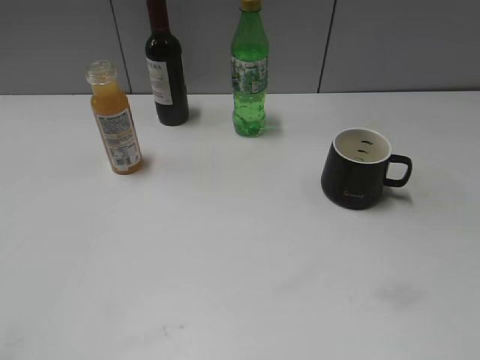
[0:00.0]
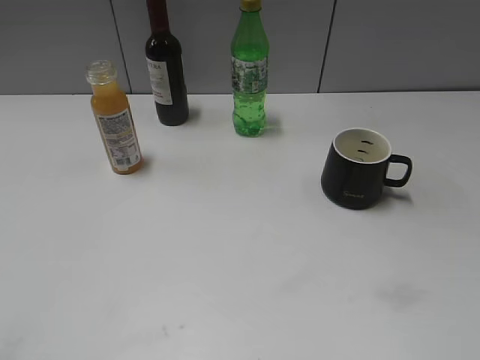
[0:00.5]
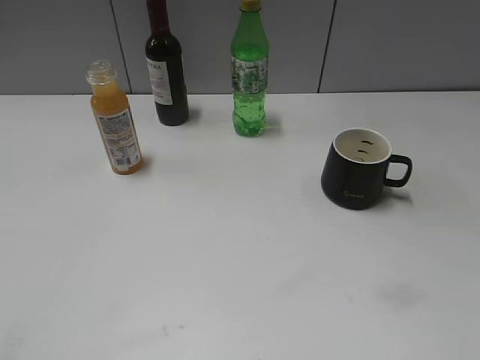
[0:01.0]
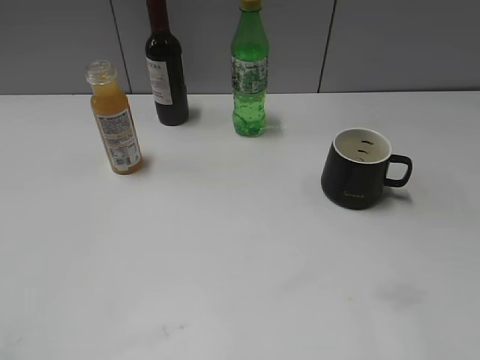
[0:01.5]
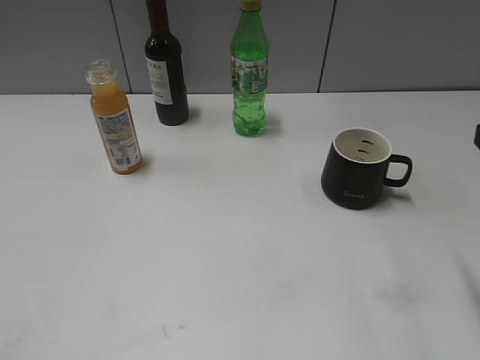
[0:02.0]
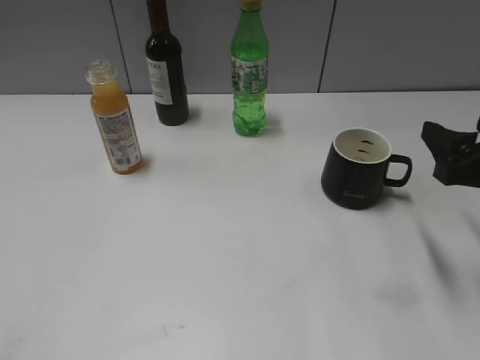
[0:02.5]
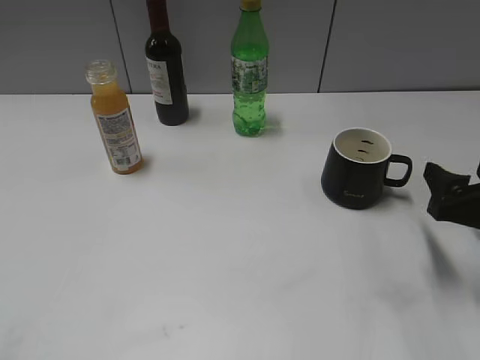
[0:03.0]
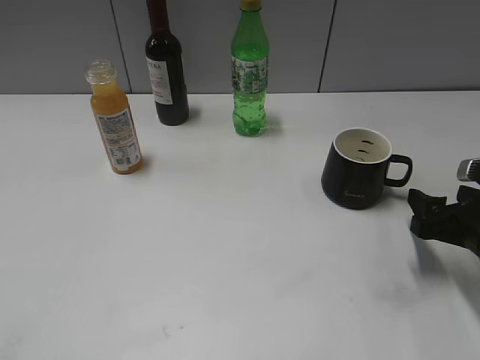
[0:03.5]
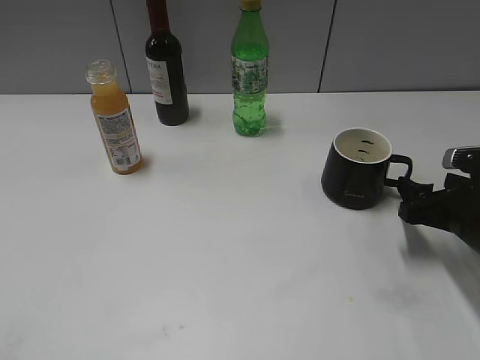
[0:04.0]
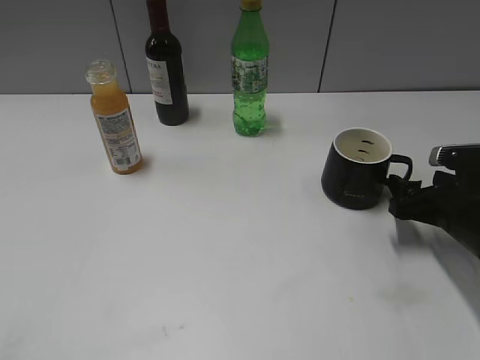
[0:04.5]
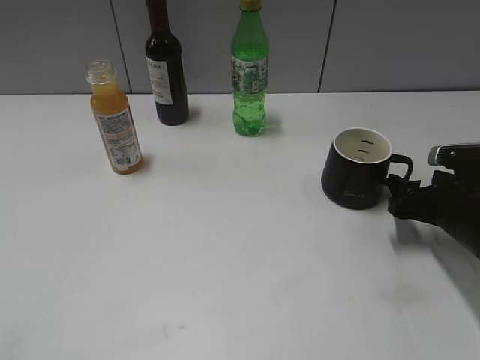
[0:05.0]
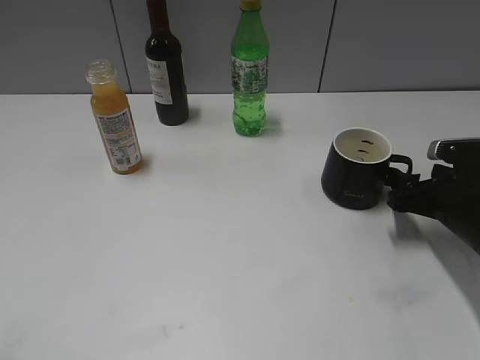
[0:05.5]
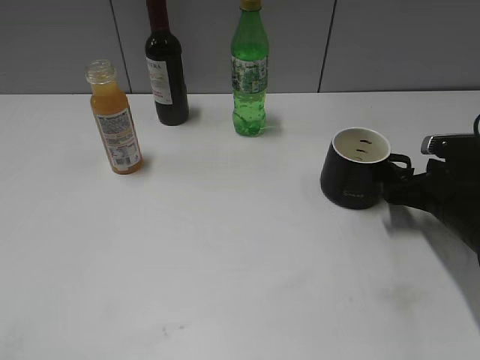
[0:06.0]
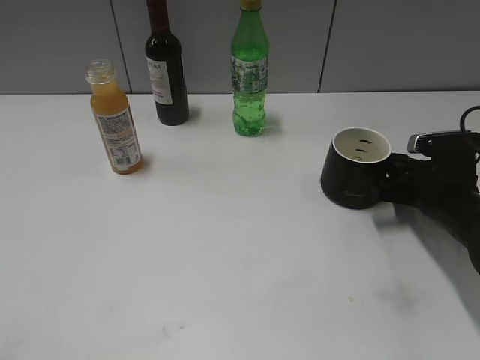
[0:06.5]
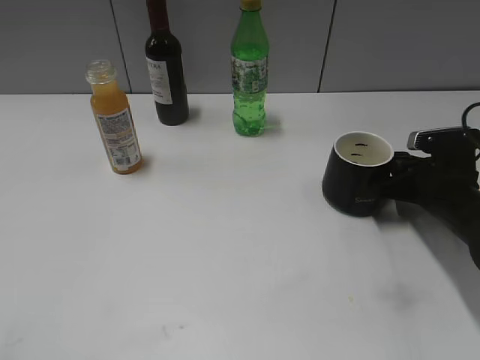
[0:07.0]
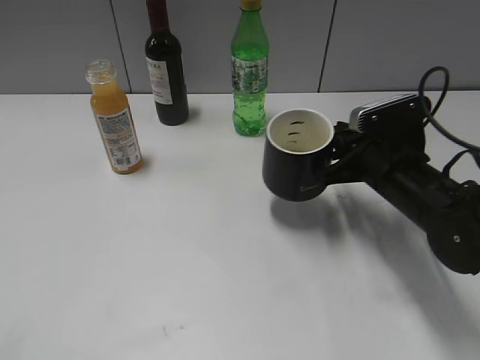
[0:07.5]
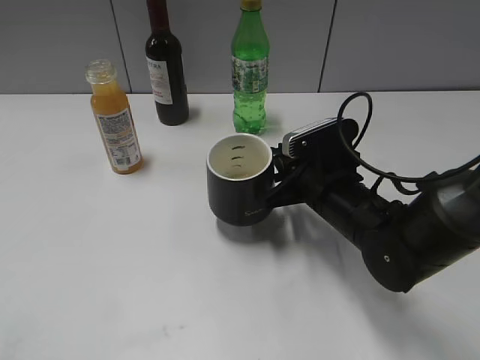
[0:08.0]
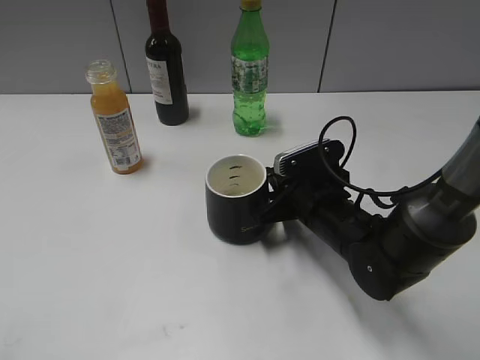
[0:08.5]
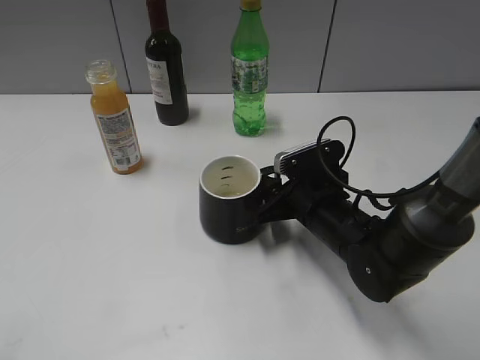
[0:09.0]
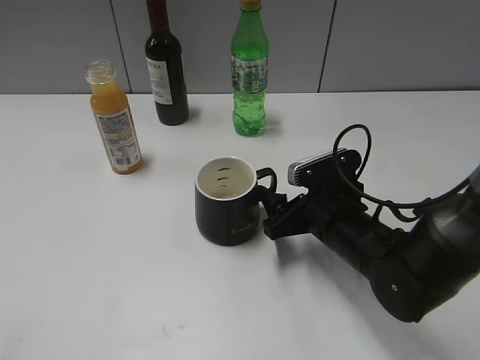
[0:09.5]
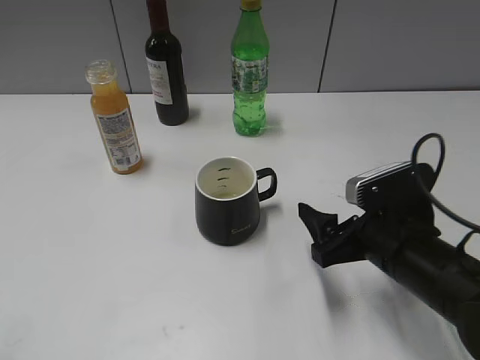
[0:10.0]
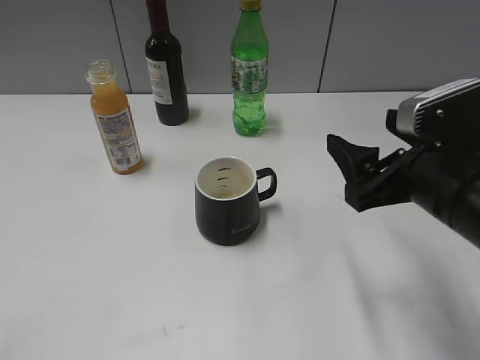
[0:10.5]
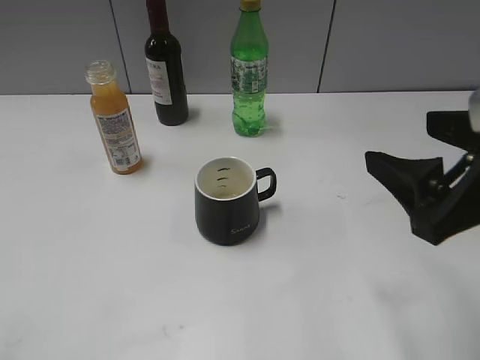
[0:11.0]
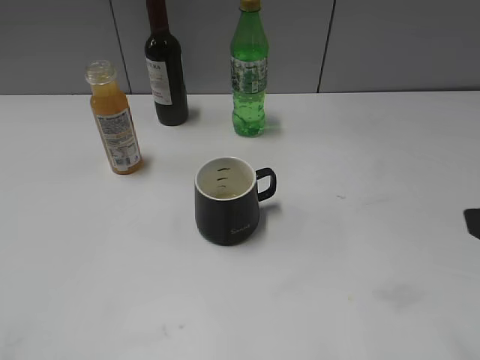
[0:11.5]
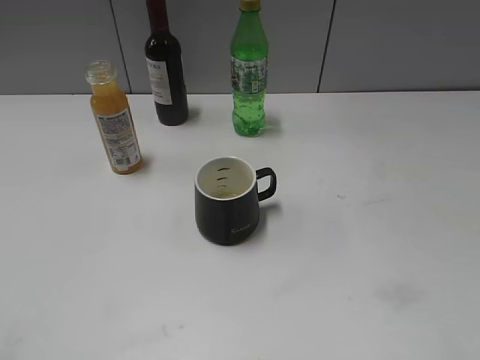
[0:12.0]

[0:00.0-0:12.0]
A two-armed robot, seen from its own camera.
Step, 0:02.0 to 0:07.0: Grasp the black cup with right gripper.
Step, 0:07.5 to 0:09.0: Place the black cup in the center of view with right gripper.
0:02.0 to 0:04.0: The right gripper moves downward and forward, some 20 cm.
0:04.0 to 0:06.0: The grippers stay close to where they were, moving slightly.
0:06.0 to 0:08.0: The right gripper goes some 15 cm to the left, and closes up.
0:08.0 to 0:10.0: The right gripper heads backward, covering approximately 10 cm, and opens.
0:10.0 to 0:12.0: The right gripper is displaced upward, backward and to the right by approximately 25 cm.

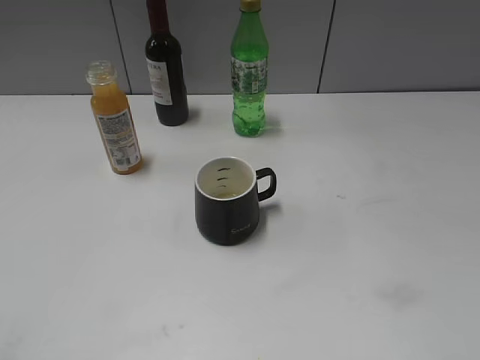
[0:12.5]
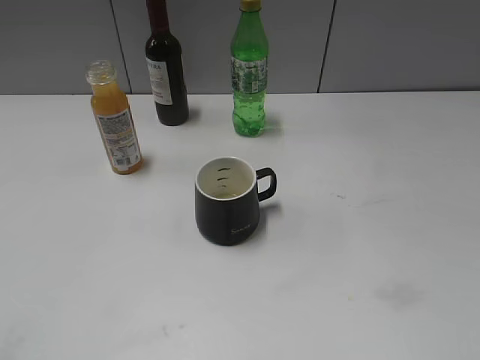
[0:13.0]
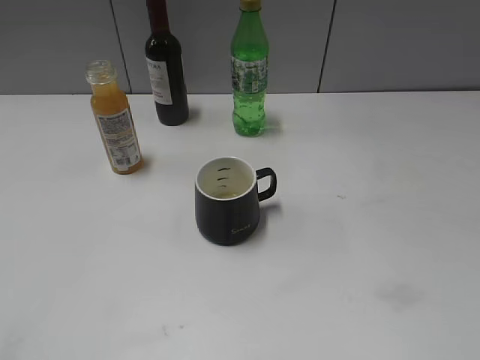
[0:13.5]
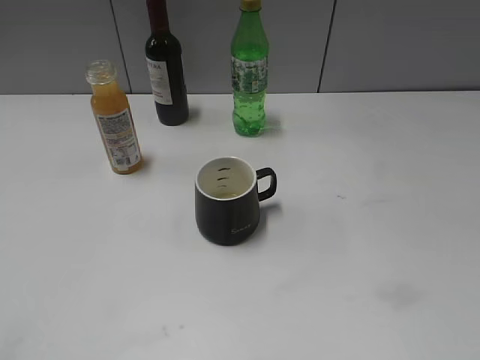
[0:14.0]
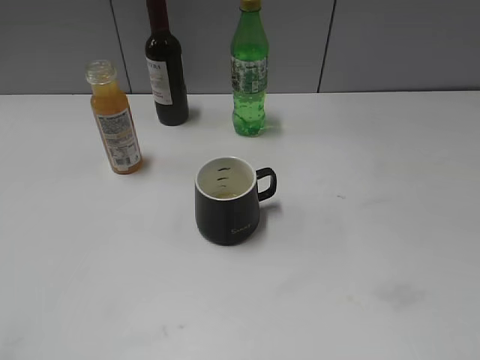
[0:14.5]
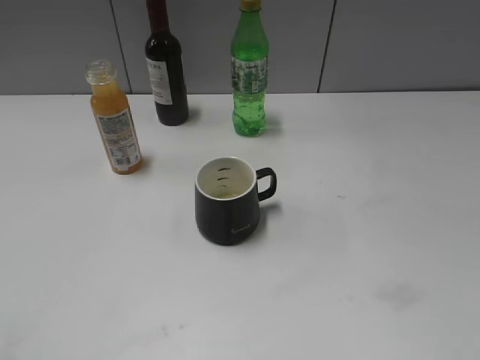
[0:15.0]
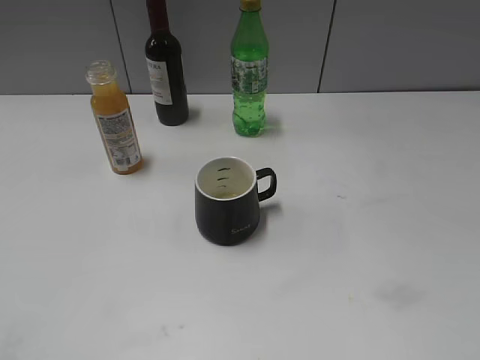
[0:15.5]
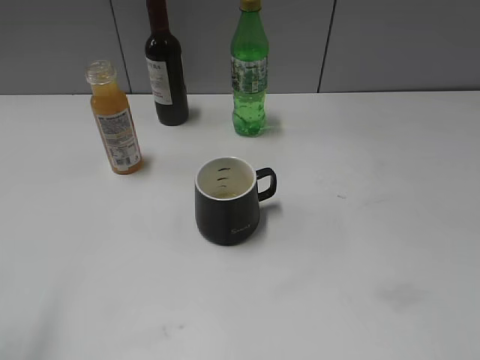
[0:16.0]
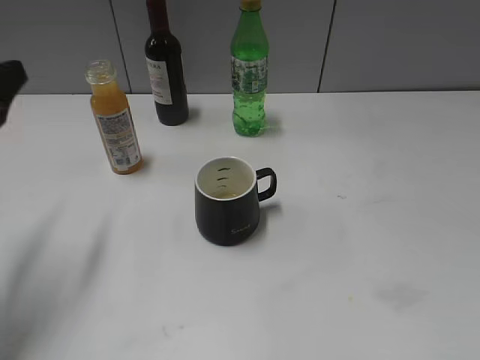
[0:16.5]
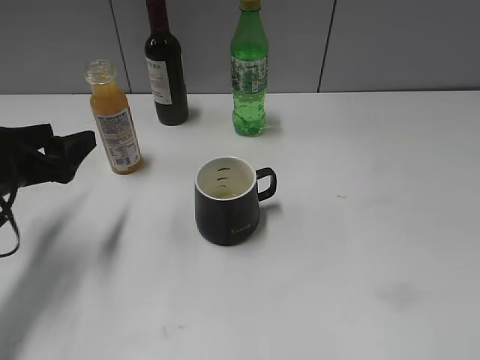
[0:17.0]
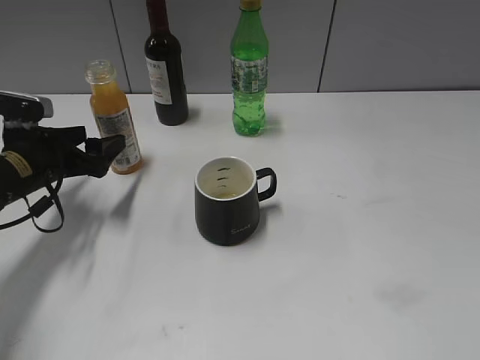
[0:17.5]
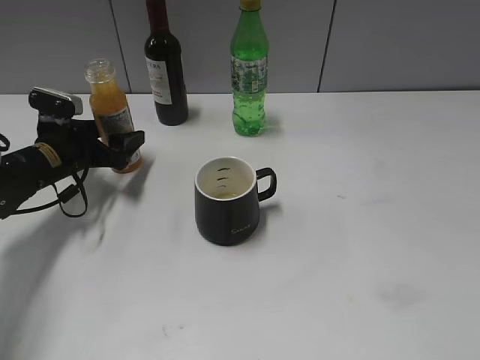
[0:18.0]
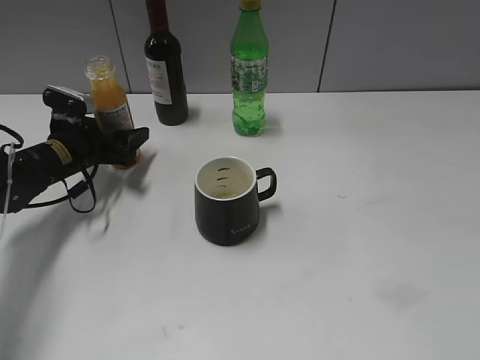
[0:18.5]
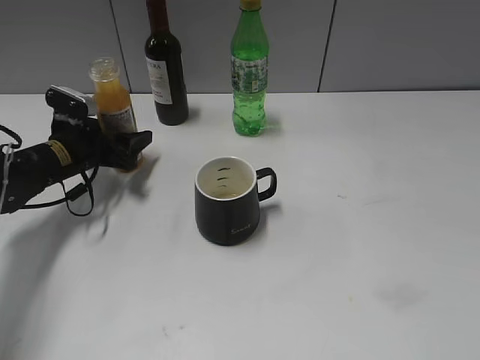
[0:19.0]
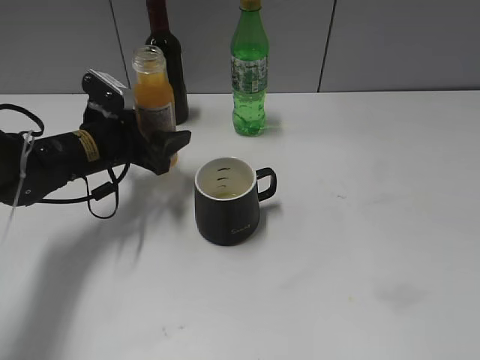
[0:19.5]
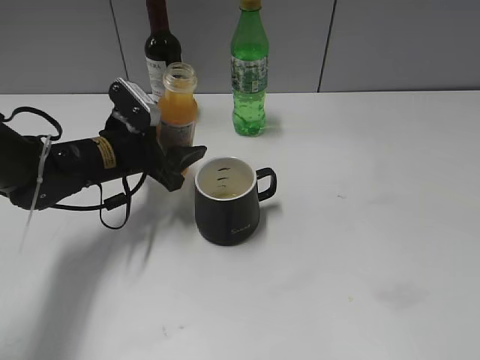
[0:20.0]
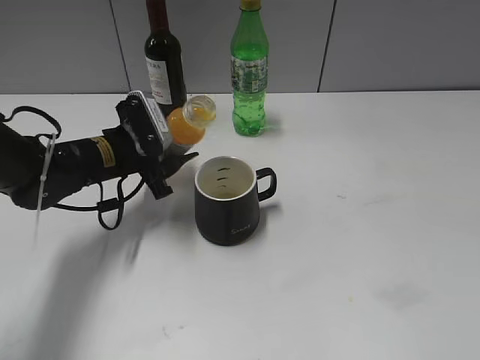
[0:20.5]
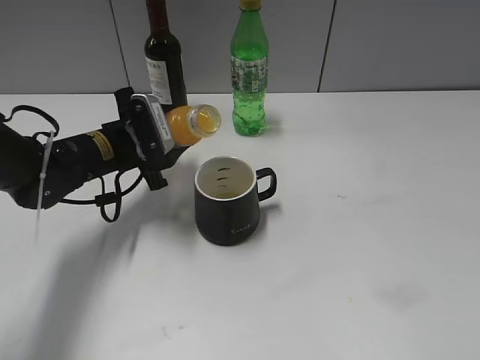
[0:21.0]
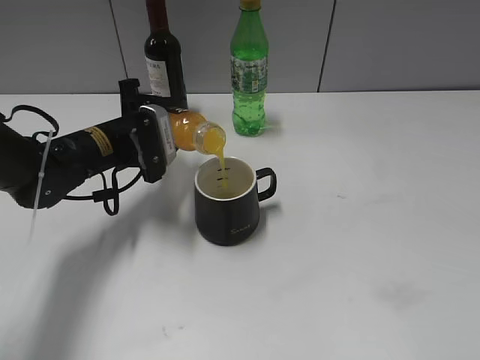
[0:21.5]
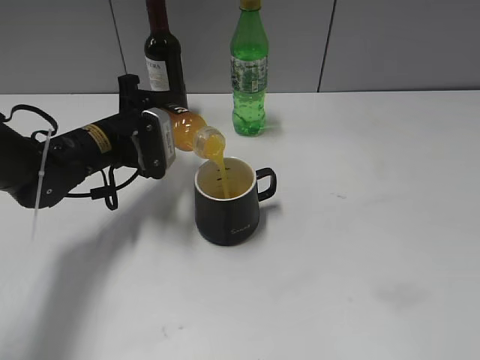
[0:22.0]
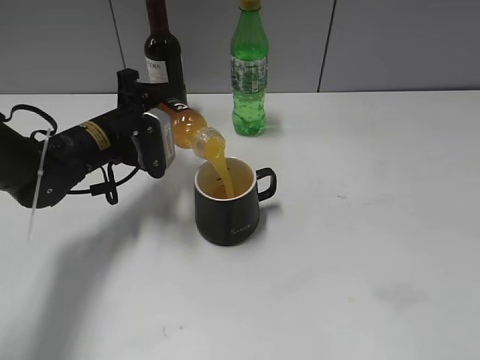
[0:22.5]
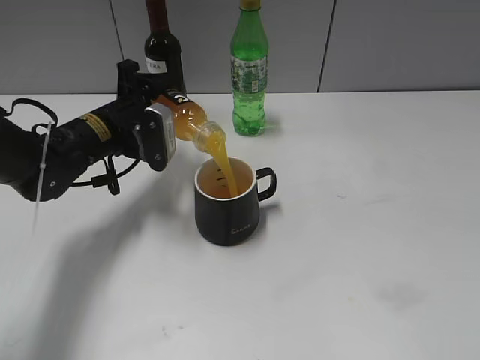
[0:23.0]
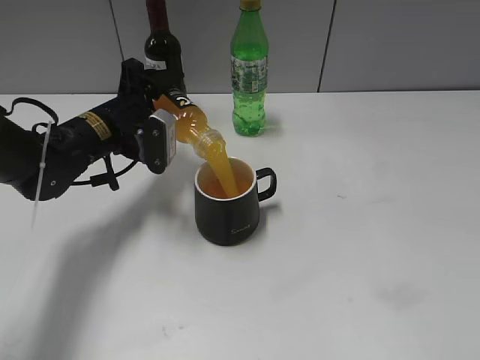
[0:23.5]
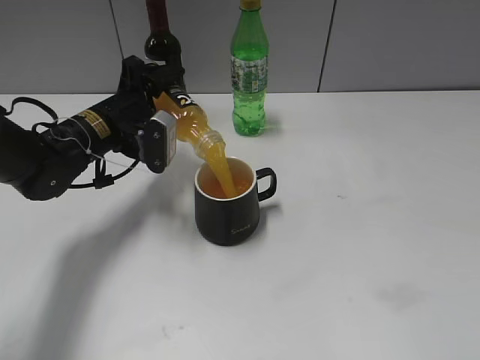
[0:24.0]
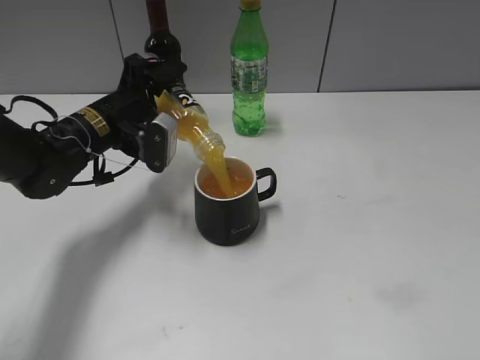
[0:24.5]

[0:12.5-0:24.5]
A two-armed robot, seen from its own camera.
Step, 0:12.5 to 0:19.0: Grasp the bottle with orange juice with left gripper.
0:14.5 to 0:16.5: The left gripper heads forward, covering approximately 25 cm, and opens its fingers.
0:16.5 to 0:18.5: The left gripper travels forward and downward by about 25 cm, and closes its fingers.
0:18.5 to 0:20.5: The left gripper shifts approximately 10 cm to the right.

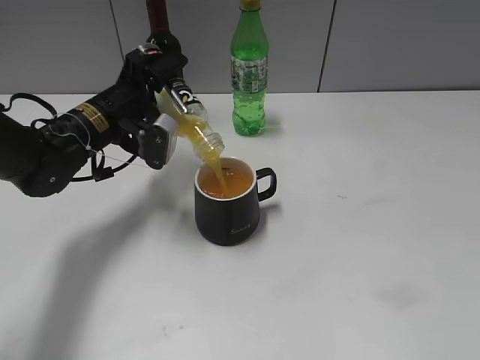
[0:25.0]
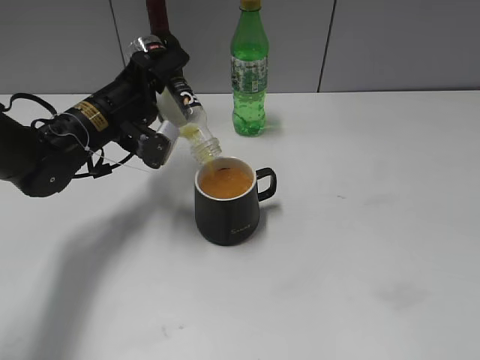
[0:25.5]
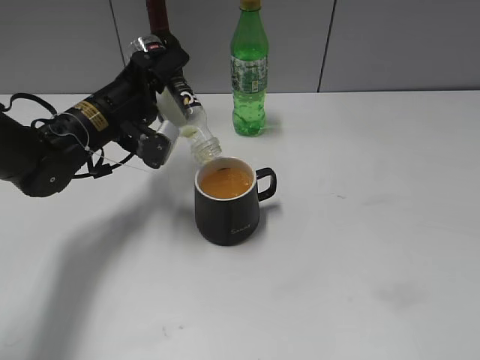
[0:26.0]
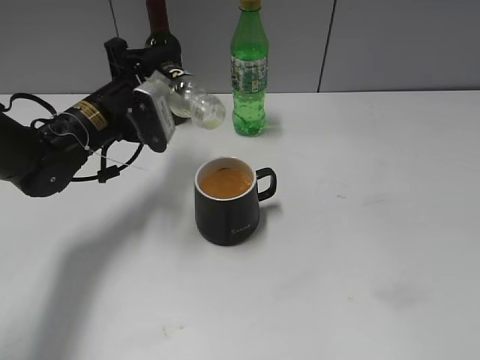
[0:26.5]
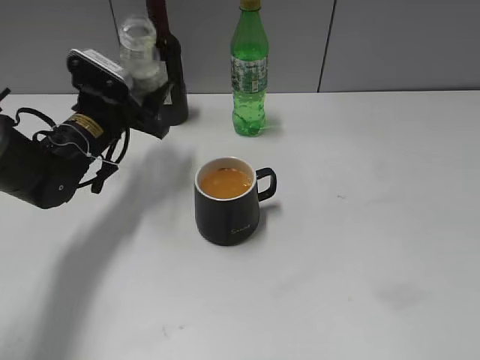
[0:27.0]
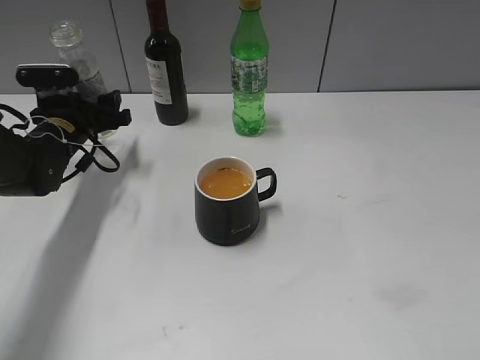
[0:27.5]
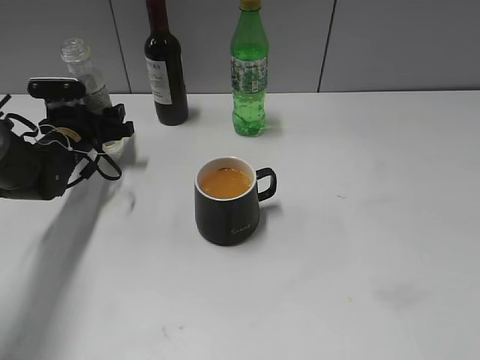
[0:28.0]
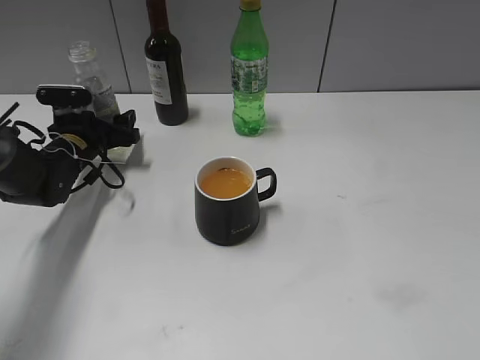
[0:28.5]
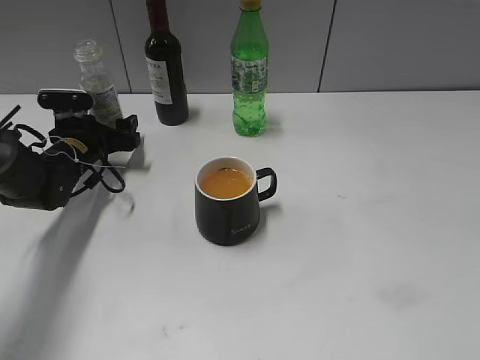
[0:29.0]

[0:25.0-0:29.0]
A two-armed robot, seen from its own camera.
Step, 0:26.5 to 0:29.0: Place the orange juice bottle on the table with left gripper.
0:27.0 to 0:29.0: The left gripper moves downward and to the left, some 10 cm, and opens its fingers.
